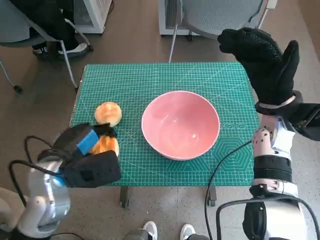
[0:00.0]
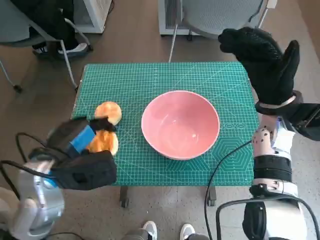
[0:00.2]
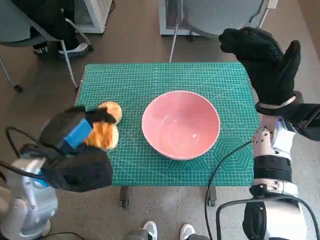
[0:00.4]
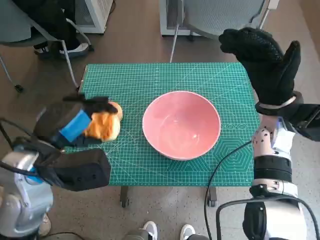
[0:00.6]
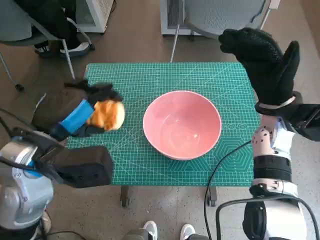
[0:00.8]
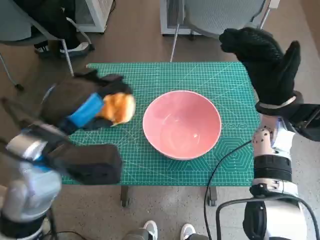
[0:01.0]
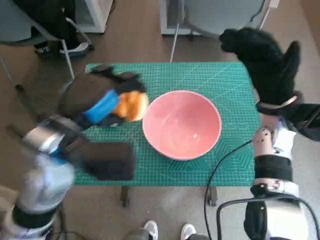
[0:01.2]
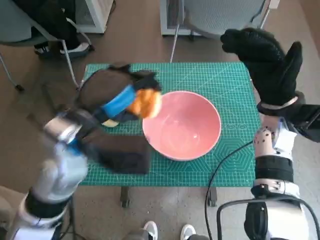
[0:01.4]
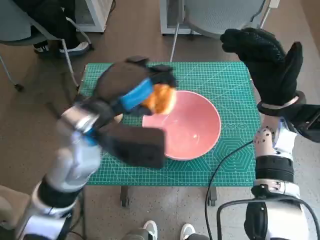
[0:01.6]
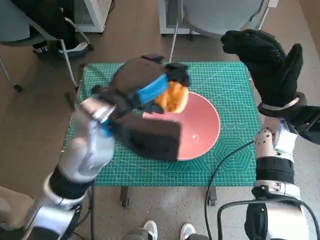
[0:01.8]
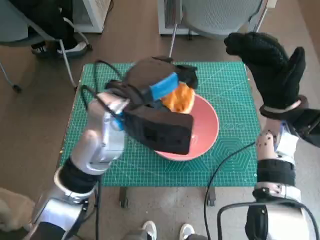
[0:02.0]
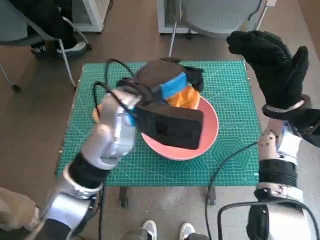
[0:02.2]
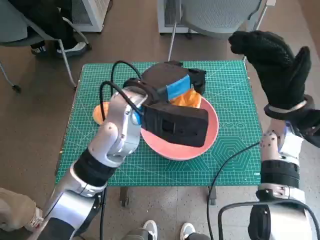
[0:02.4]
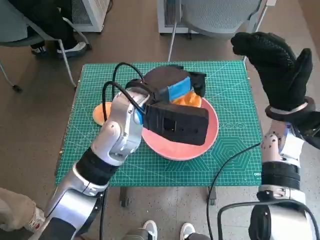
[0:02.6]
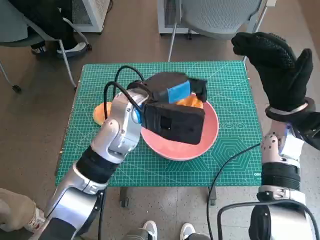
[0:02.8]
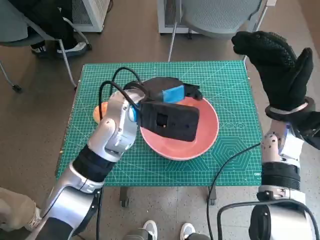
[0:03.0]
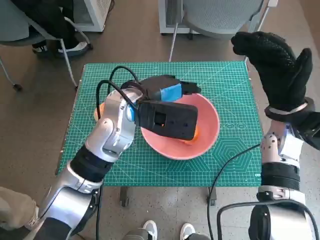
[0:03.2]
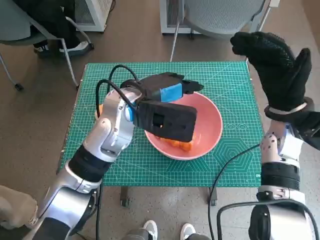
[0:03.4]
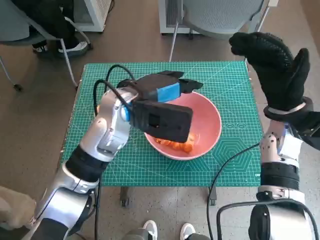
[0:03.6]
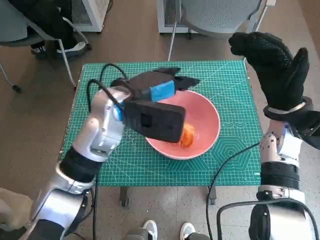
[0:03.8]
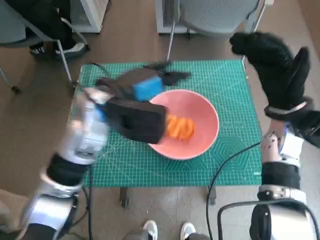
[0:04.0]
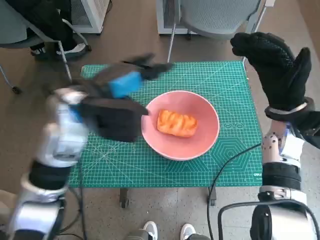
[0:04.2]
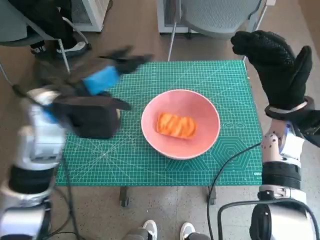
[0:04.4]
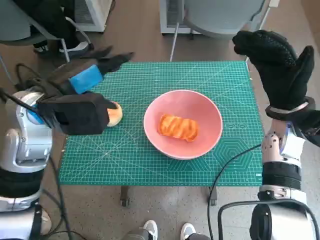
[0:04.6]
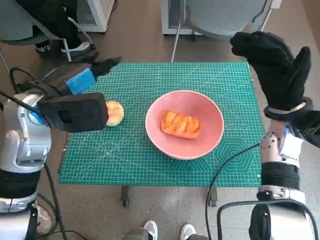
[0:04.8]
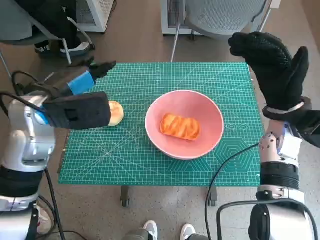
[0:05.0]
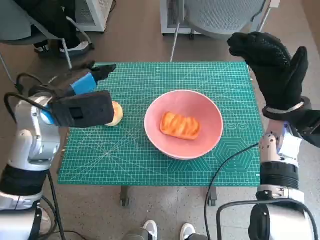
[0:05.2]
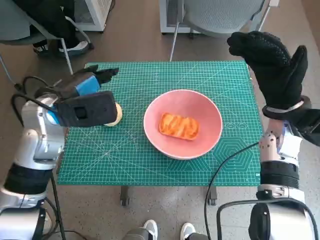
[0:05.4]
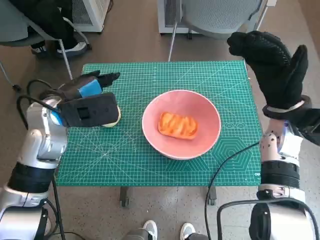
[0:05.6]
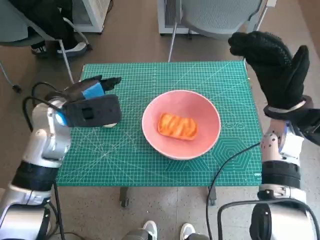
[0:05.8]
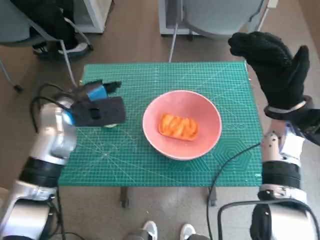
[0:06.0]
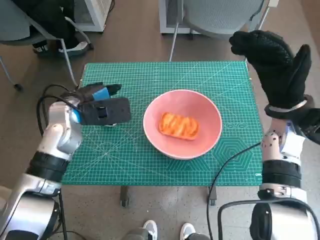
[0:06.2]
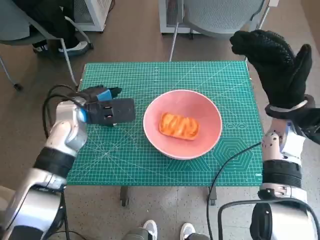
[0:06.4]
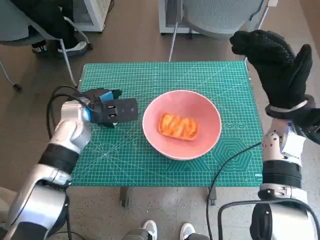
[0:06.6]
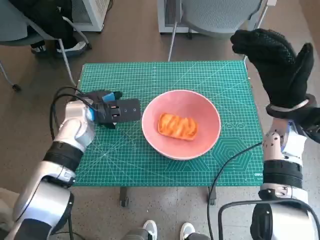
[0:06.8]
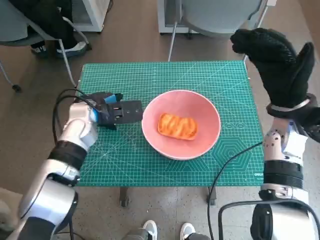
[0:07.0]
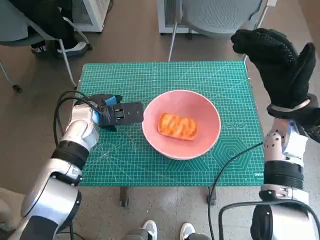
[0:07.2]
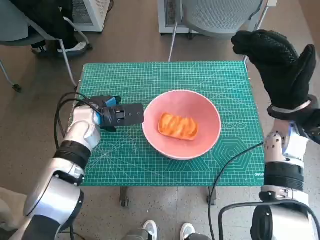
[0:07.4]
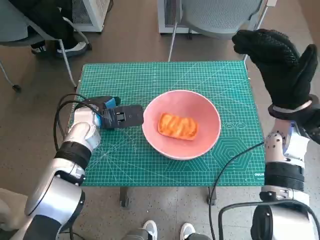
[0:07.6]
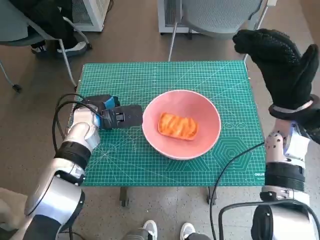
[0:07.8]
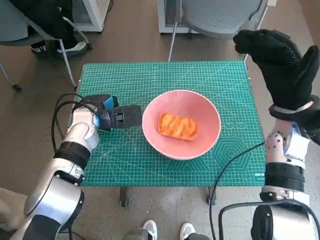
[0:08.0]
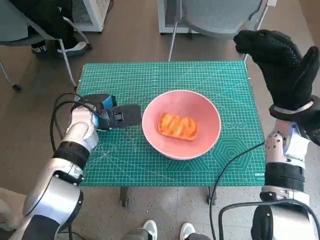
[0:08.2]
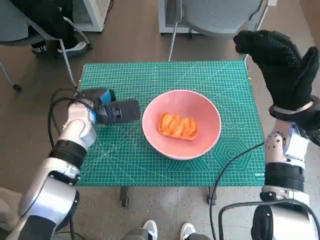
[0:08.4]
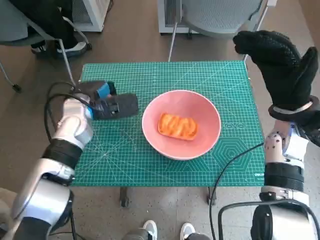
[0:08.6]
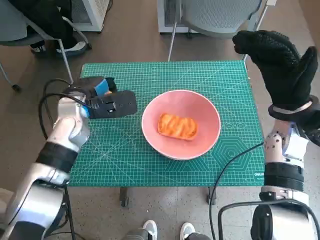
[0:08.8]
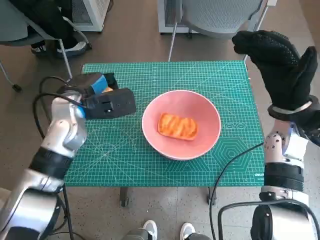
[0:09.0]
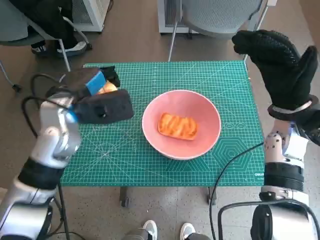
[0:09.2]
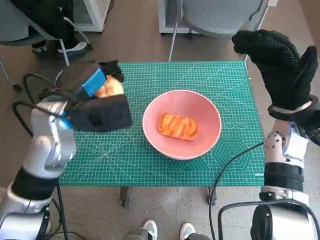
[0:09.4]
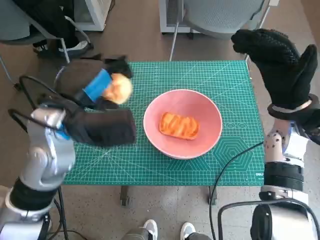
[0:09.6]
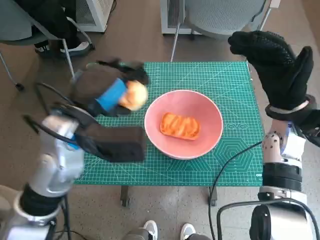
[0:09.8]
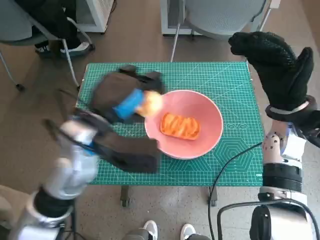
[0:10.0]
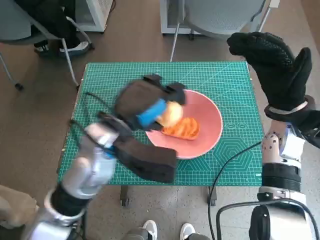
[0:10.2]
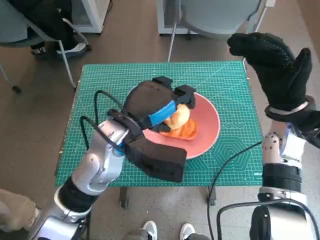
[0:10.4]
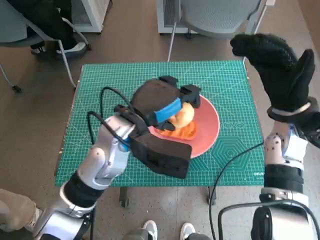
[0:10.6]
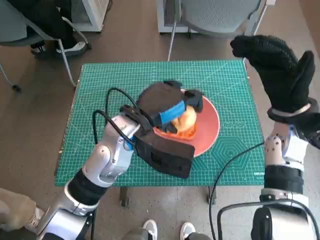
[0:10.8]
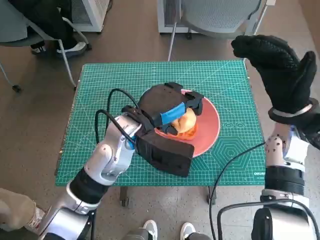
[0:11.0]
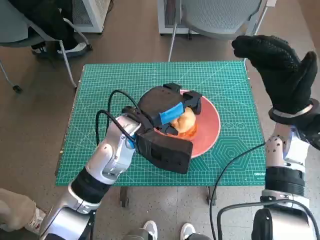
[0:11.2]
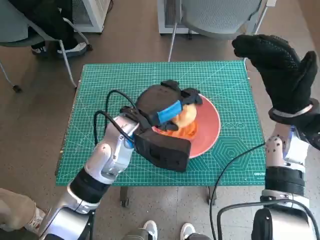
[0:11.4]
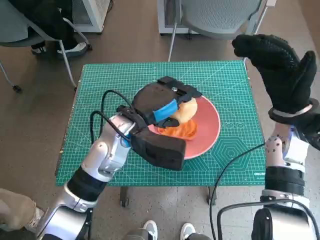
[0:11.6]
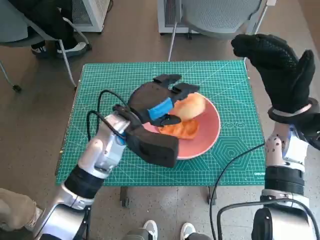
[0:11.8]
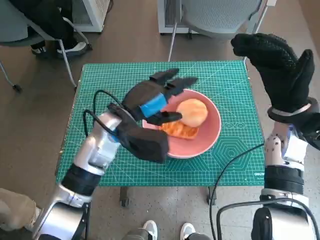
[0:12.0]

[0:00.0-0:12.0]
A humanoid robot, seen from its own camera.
Step, 0:00.0 to 0:03.4: Place the long bread in pink bowl with left hand.
Step, 0:03.6 to 0:07.8: Grasp the round bread with left hand.
Step, 0:08.0 to 0:11.8: Place the round bread in pink bowl with left hand.
0:00.0 to 0:01.6: The left hand travels upward and to the right by approximately 15 cm.
0:01.6 to 0:03.0: The left hand goes approximately 10 cm forward and to the right.
0:03.0 to 0:04.4: The left hand travels to the left by approximately 10 cm.
0:04.4 to 0:06.0: The left hand goes approximately 5 cm downward.
0:06.0 to 0:07.6: The left hand travels downward by about 5 cm.
0:07.6 to 0:09.0: The left hand travels upward by approximately 5 cm.
0:09.0 to 0:10.4: The left hand moves to the right and backward, about 10 cm.
0:10.4 to 0:12.0: The left hand moves approximately 5 cm.

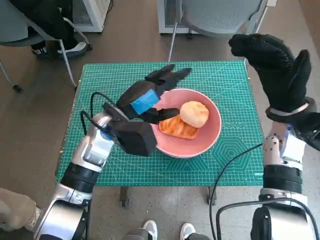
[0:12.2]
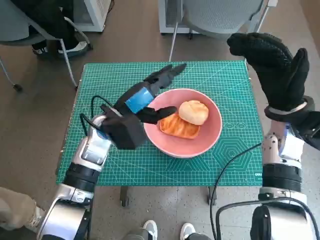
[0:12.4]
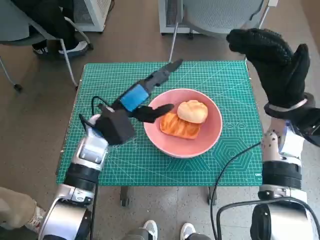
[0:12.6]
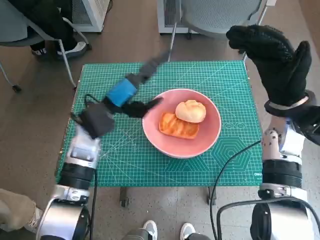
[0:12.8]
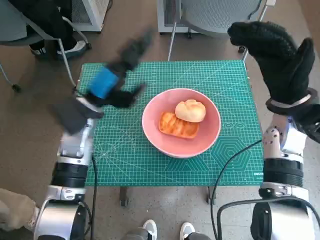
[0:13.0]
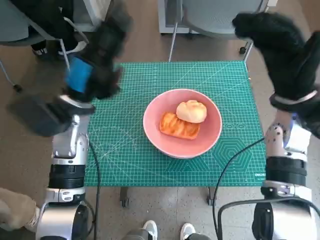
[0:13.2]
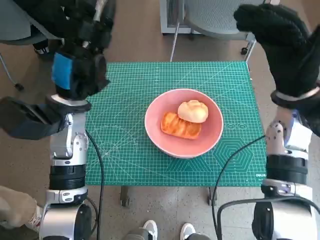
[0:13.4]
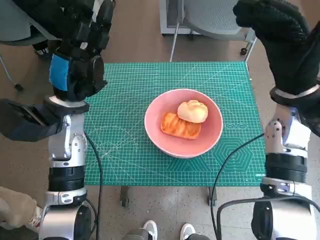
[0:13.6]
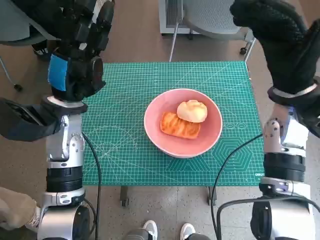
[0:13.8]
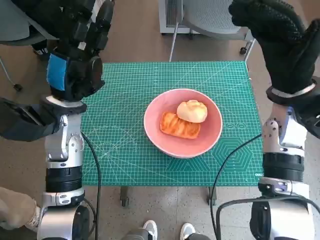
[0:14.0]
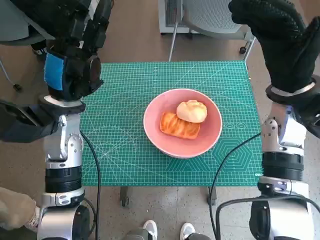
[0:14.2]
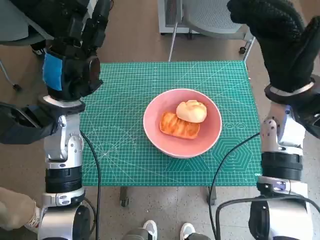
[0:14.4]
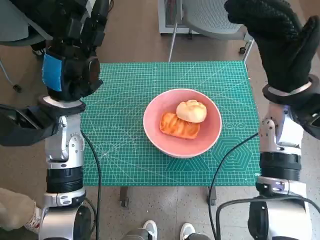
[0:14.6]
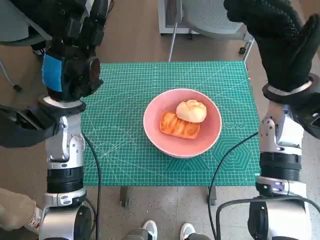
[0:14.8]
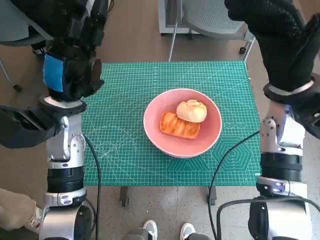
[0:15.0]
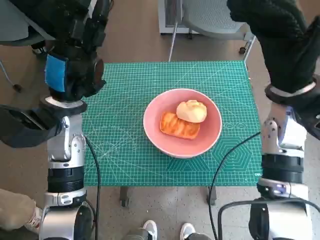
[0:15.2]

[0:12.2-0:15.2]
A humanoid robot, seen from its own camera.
0:12.2 to 0:13.8: The left hand heads to the left, covering about 5 cm.
0:13.8 to 0:15.2: The hands make only small movements.

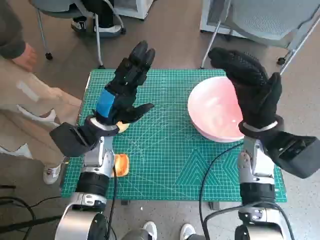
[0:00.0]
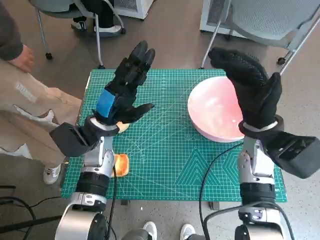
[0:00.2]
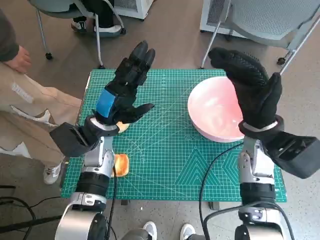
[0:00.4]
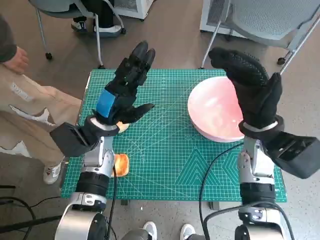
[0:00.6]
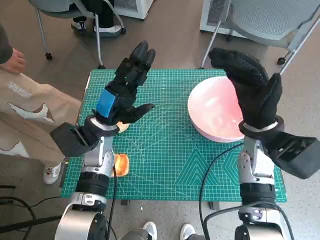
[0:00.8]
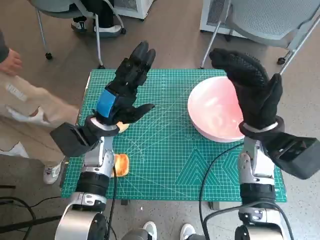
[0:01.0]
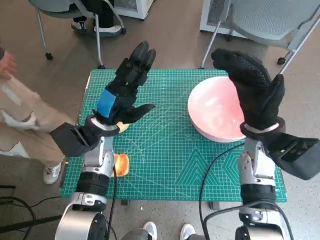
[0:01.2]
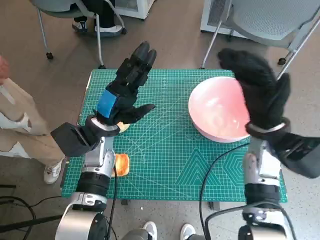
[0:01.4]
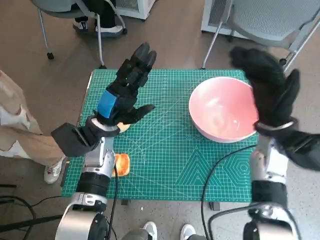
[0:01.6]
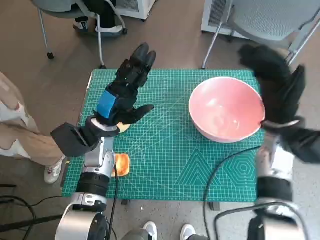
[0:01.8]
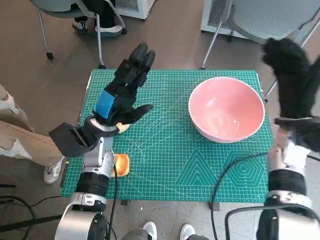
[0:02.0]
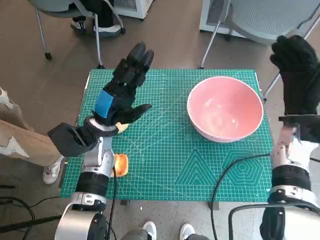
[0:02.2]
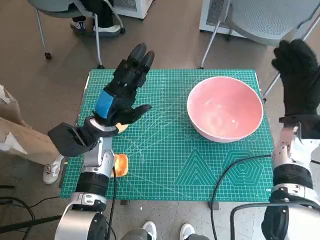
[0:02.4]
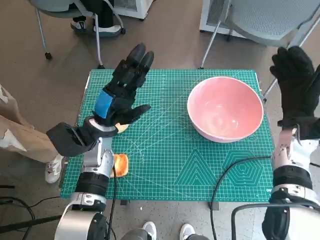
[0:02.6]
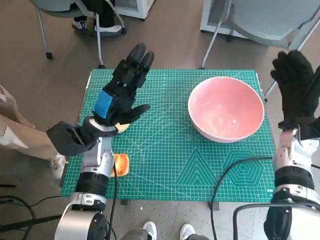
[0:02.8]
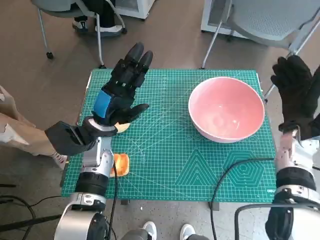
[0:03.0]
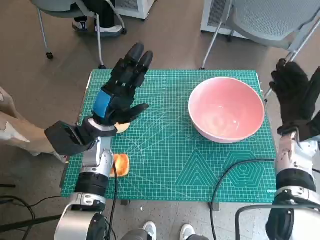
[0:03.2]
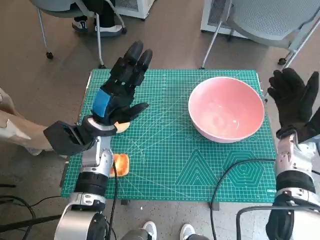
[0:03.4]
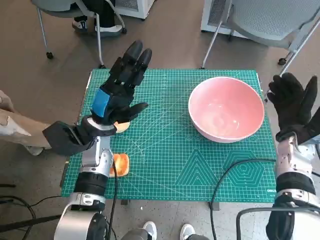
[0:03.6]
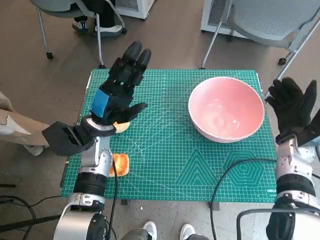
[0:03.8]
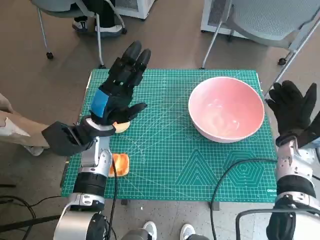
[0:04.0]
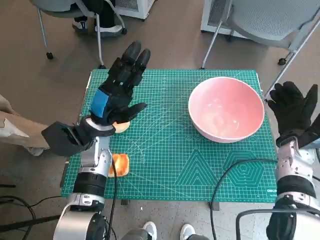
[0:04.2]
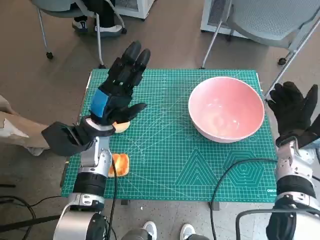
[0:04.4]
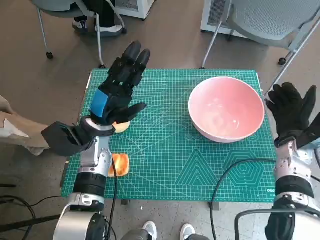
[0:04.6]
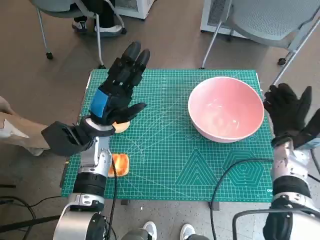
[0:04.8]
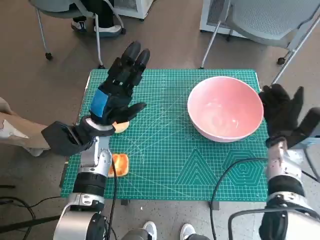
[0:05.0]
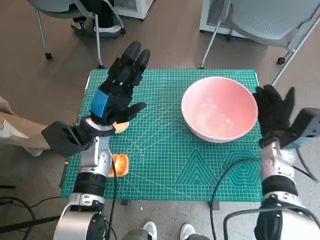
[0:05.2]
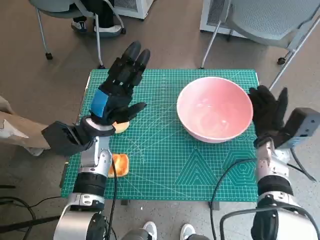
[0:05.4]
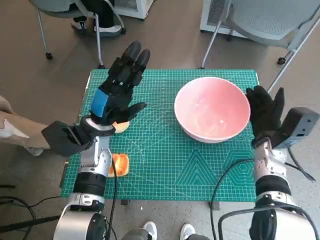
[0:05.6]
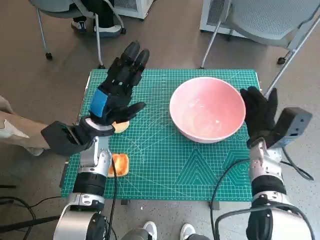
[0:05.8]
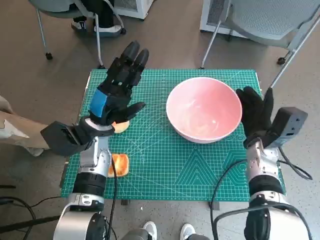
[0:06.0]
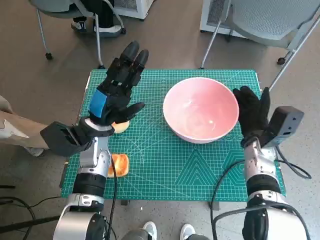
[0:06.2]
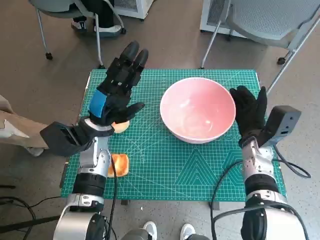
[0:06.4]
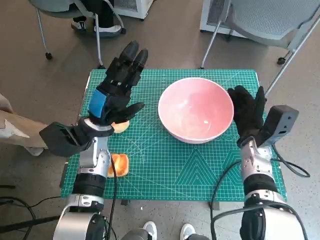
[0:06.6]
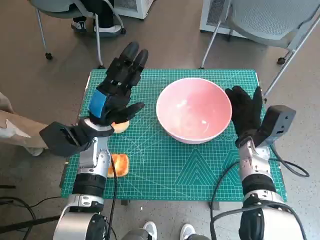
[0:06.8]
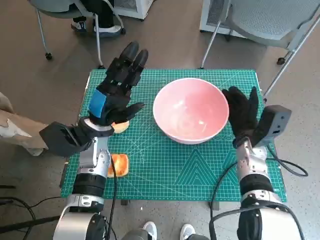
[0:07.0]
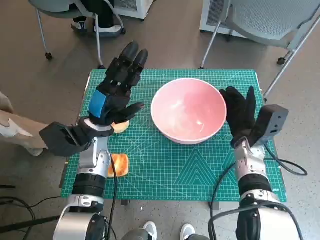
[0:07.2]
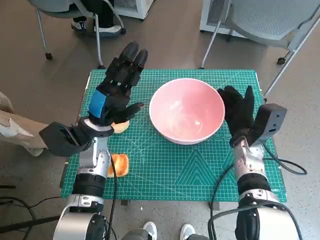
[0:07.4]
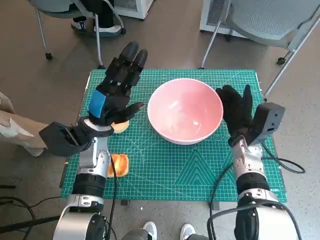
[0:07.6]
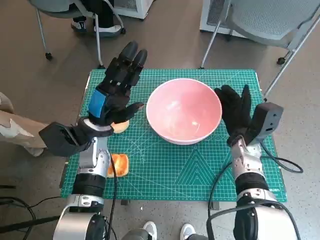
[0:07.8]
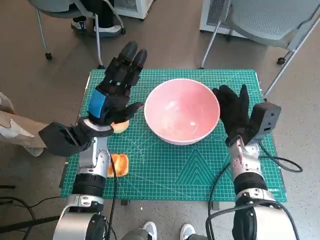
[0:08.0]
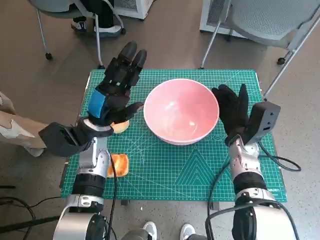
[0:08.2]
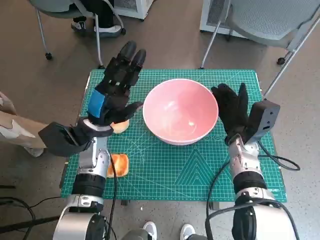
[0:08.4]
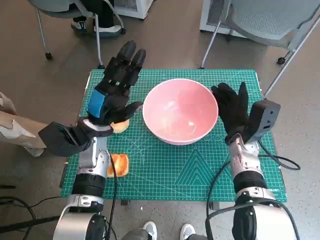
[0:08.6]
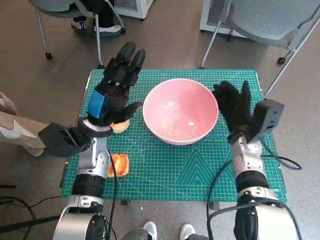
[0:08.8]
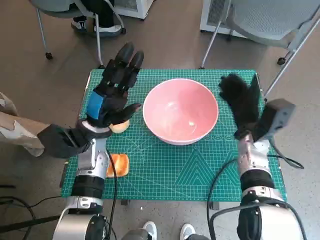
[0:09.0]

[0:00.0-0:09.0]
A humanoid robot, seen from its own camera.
Step, 0:00.0 to 0:09.0: Move the pink bowl to the center of table with right hand.
0:01.6 to 0:03.0: The right hand heads to the right, covering roughly 5 cm.
0:03.0 to 0:04.4: The hands move only a little.
0:04.4 to 0:06.0: The right hand shifts about 5 cm to the left.
0:06.0 to 0:09.0: There are only small adjustments of the hands.
